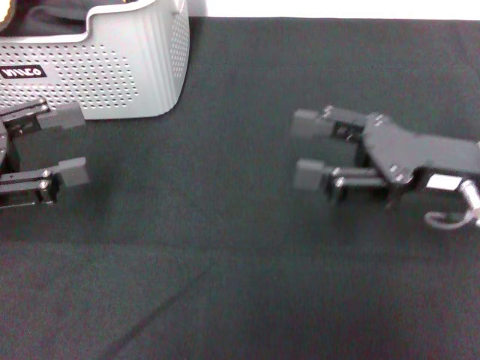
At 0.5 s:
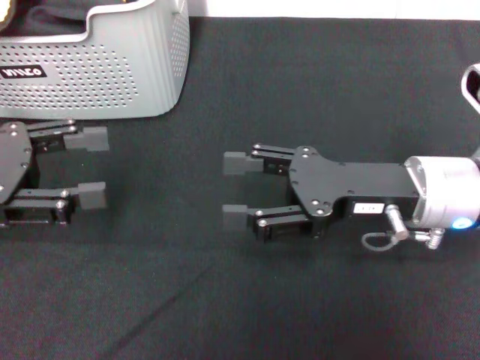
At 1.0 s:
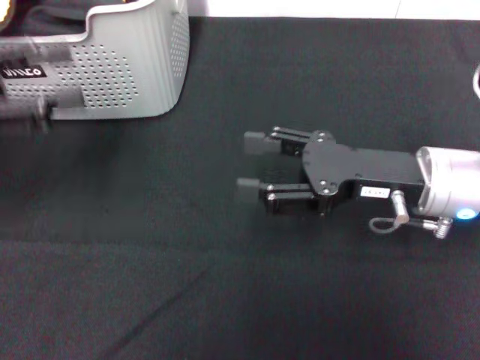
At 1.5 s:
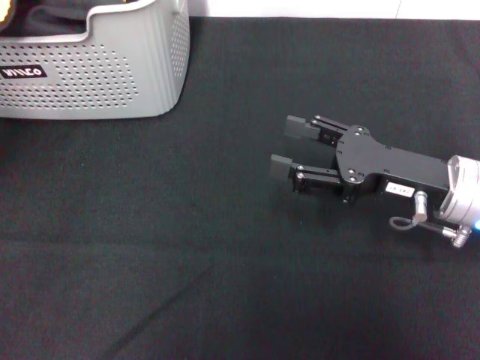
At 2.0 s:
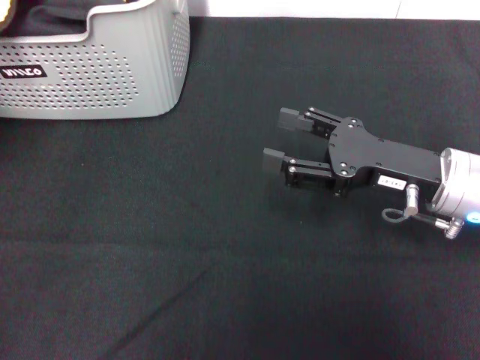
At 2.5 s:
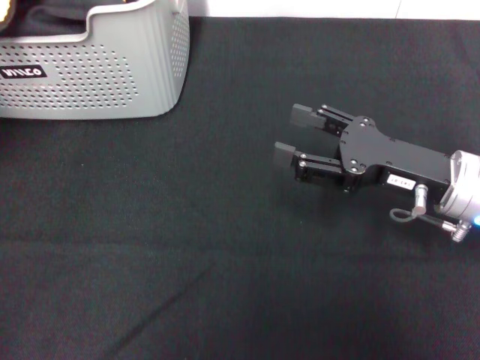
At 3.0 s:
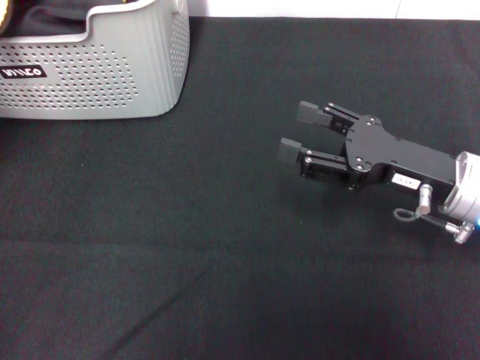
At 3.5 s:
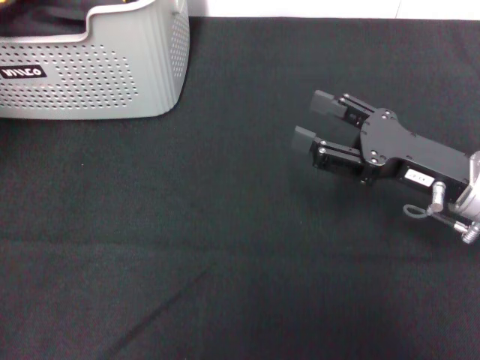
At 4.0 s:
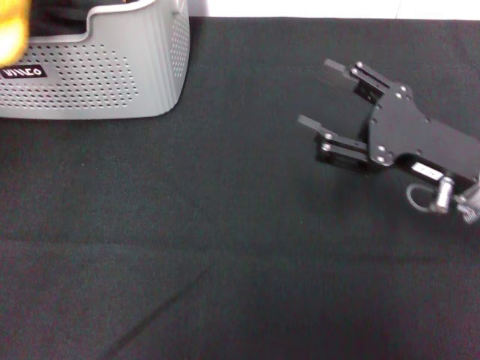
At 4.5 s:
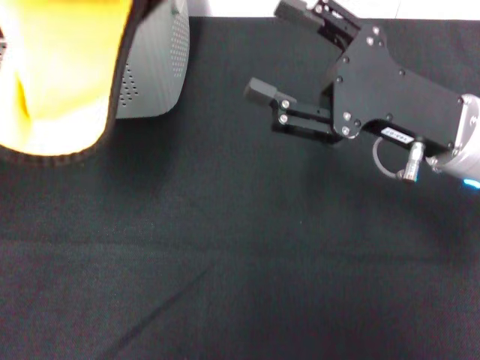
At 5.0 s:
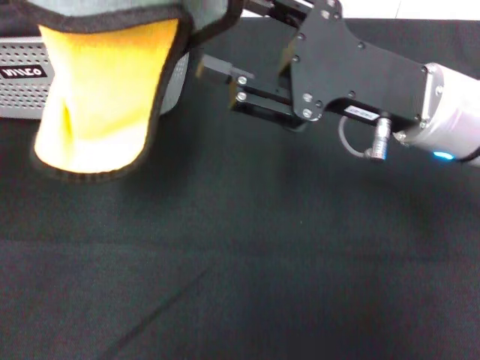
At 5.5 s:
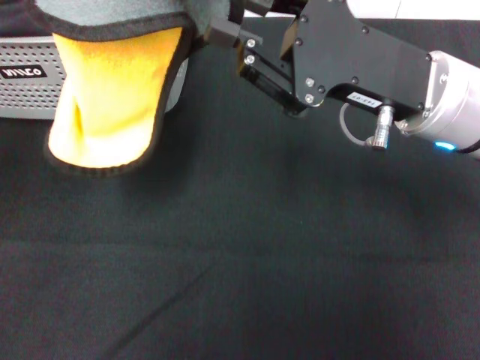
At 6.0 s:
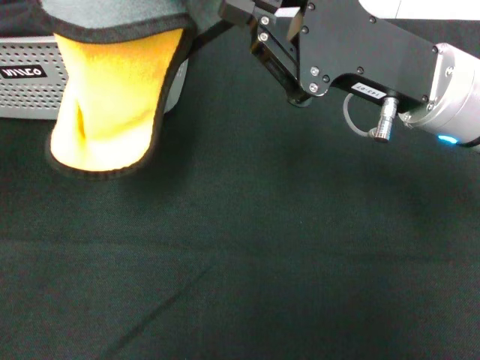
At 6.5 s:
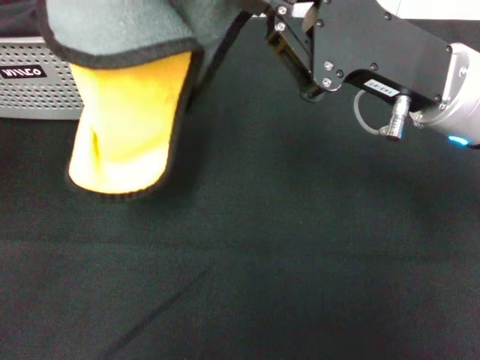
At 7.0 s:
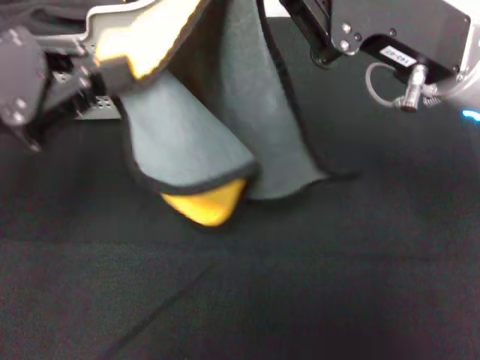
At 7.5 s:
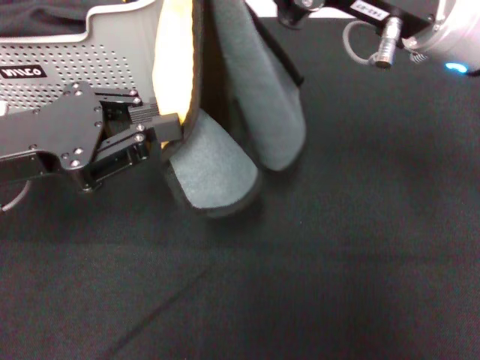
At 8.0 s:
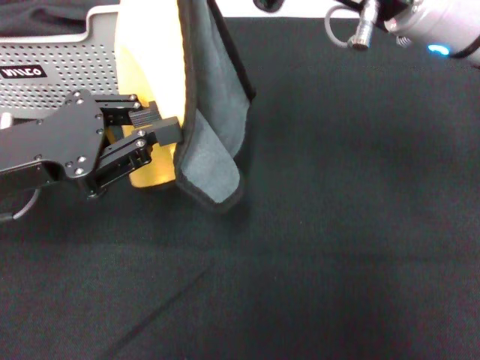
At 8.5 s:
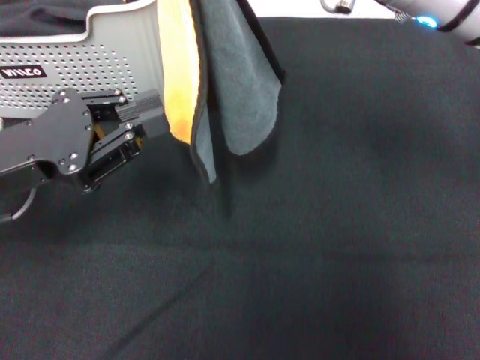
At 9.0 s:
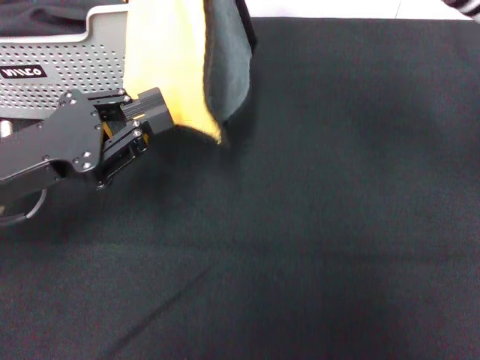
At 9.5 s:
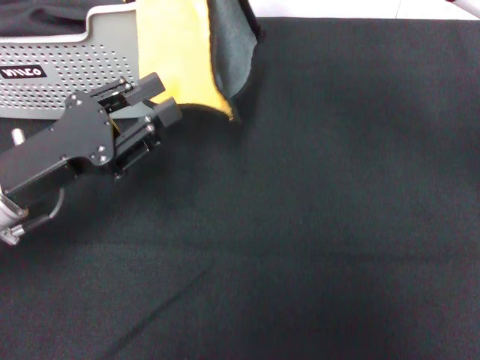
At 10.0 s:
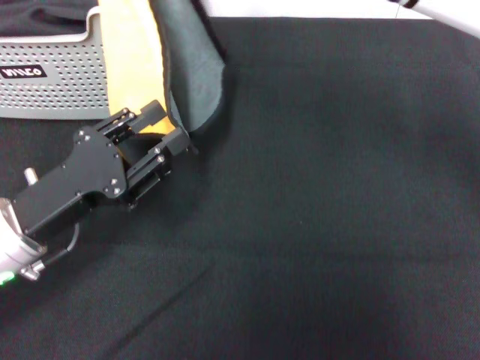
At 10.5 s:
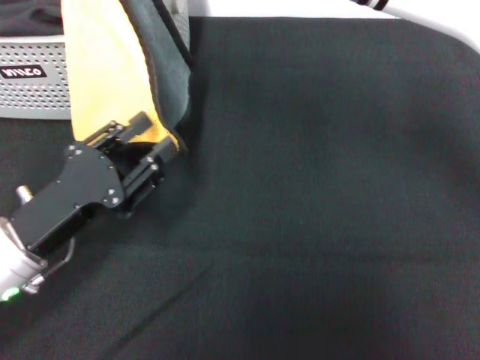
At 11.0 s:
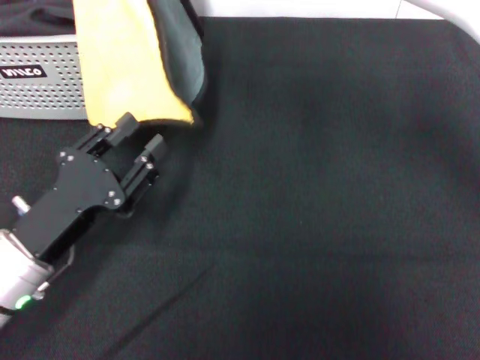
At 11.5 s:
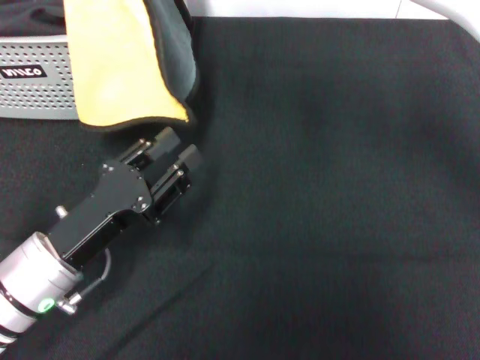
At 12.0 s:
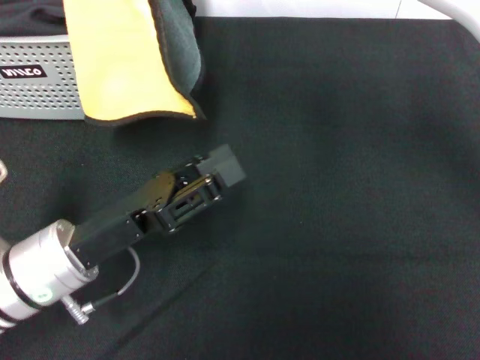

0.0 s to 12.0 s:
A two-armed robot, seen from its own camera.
Task of the whole recording: pick up the towel from the storage box and lay it flat on the black tablecloth.
Step, 0.0 to 3.0 s: Pick up a towel with the left gripper.
Step, 3.5 to 6.5 s: Spread the towel flat with the left gripper.
0.0 to 2.0 s: The left gripper heads upward, covering about 10 cm.
2.0 to 4.0 s: The left gripper is displaced upward by approximately 10 cm, and closes up.
4.0 to 6.0 s: The right gripper heads upward and to the left, covering approximately 10 cm, and closes up.
6.0 to 8.0 s: The left gripper shifts approximately 15 cm downward. Meanwhile the right gripper moves upward, roughly 5 cm.
8.0 to 10.0 s: The right gripper moves to the left, some 5 cm; the left gripper heads downward, covering roughly 10 cm, and opens up.

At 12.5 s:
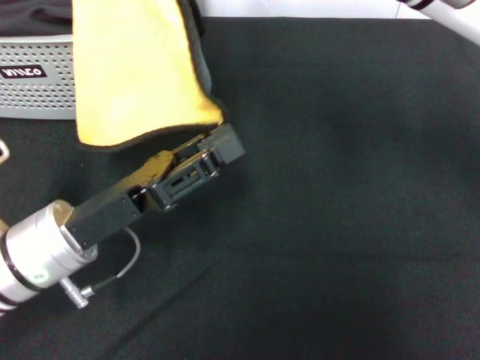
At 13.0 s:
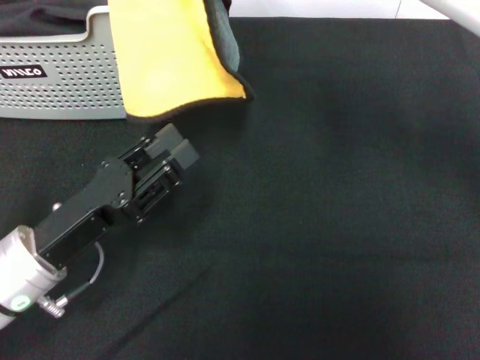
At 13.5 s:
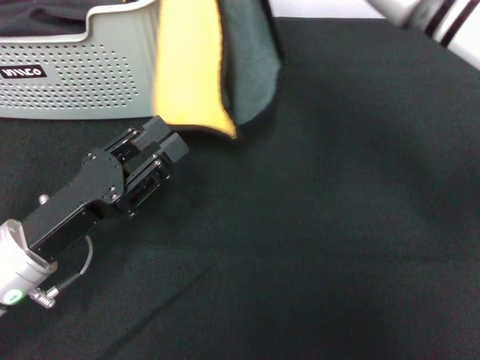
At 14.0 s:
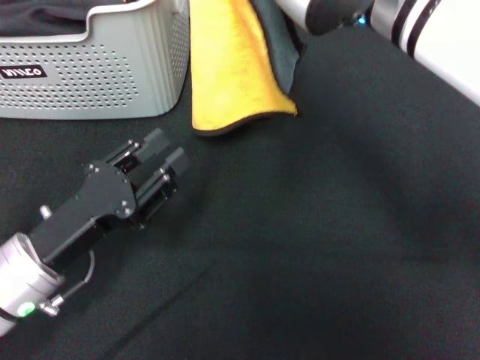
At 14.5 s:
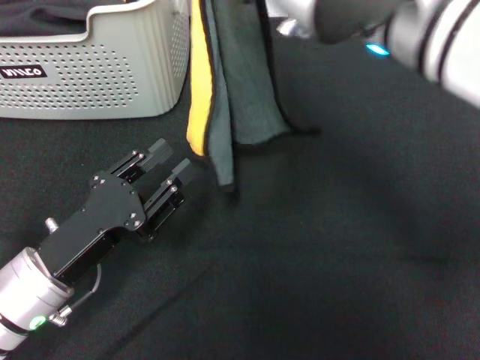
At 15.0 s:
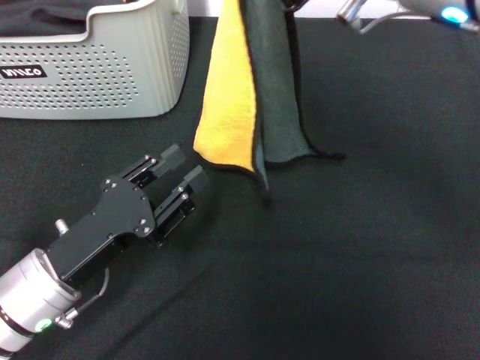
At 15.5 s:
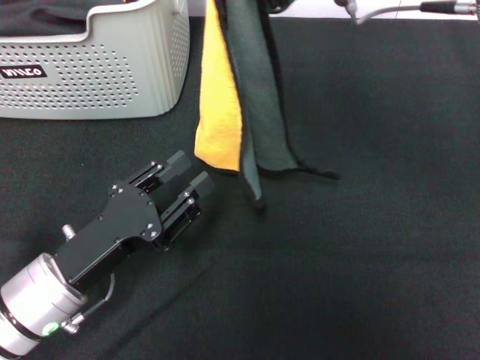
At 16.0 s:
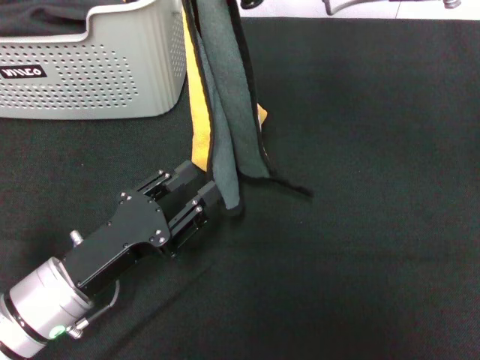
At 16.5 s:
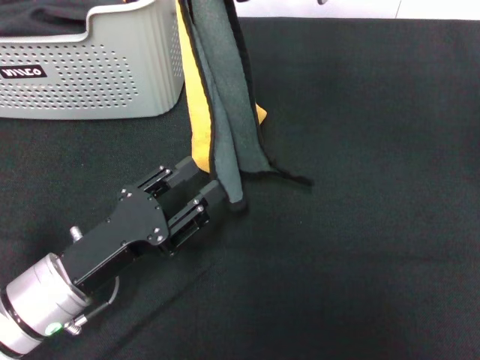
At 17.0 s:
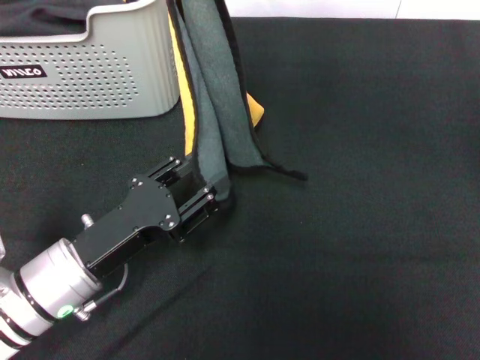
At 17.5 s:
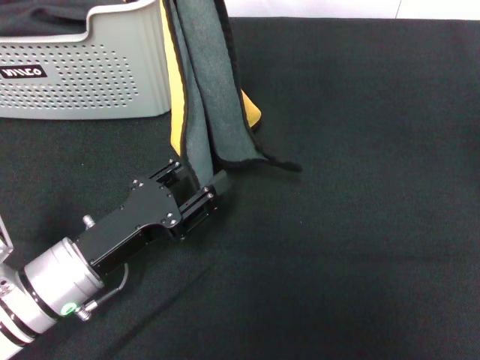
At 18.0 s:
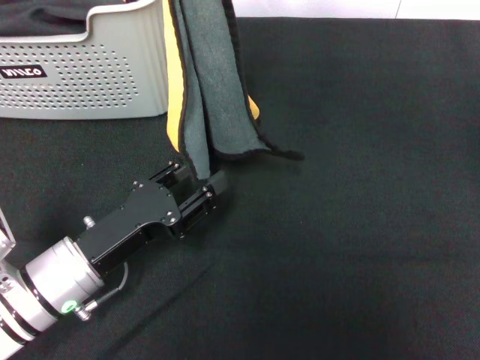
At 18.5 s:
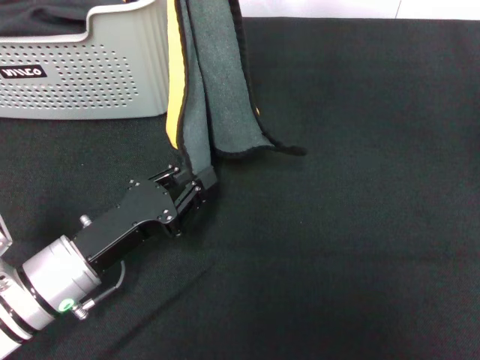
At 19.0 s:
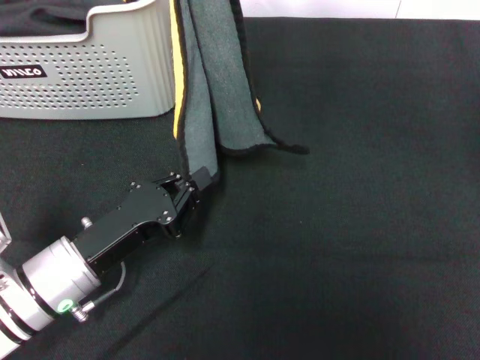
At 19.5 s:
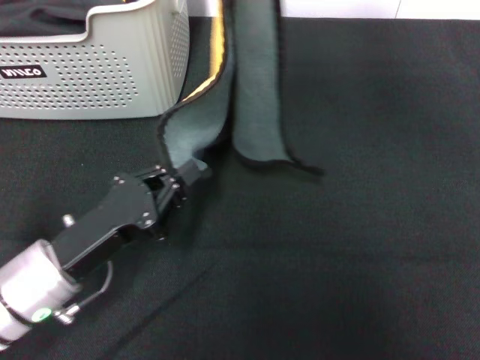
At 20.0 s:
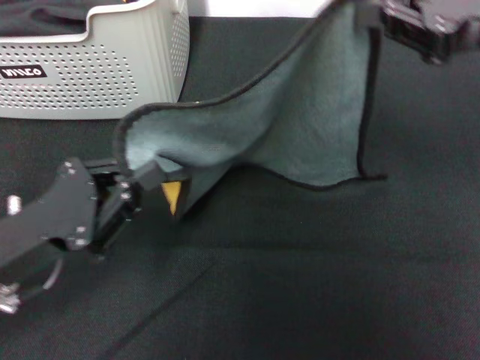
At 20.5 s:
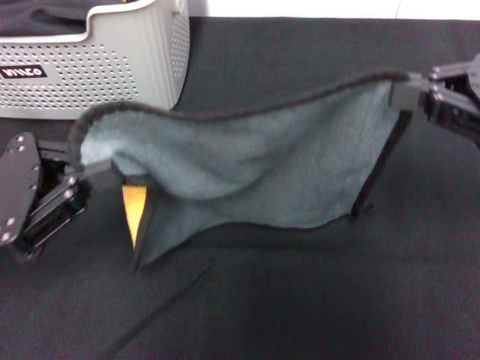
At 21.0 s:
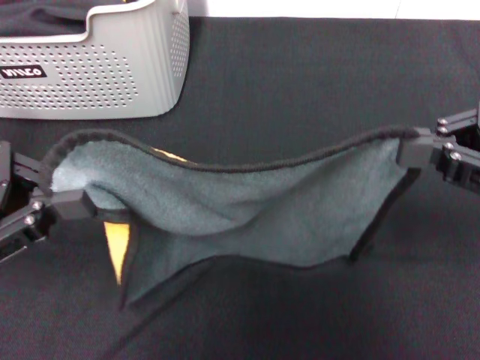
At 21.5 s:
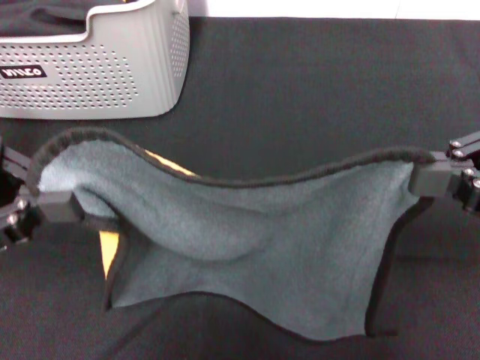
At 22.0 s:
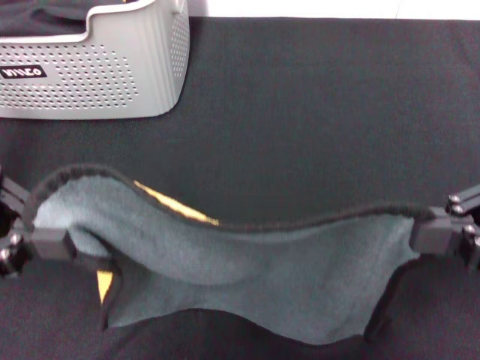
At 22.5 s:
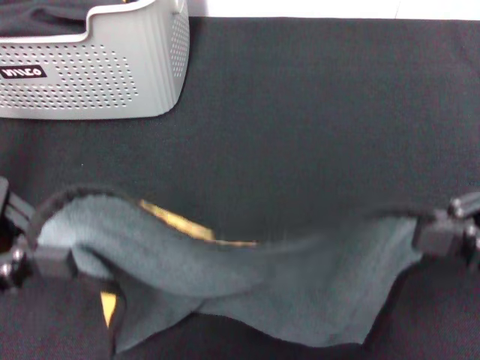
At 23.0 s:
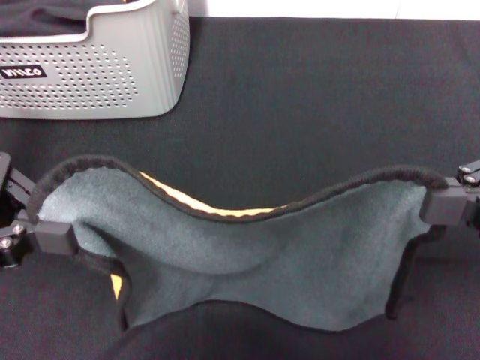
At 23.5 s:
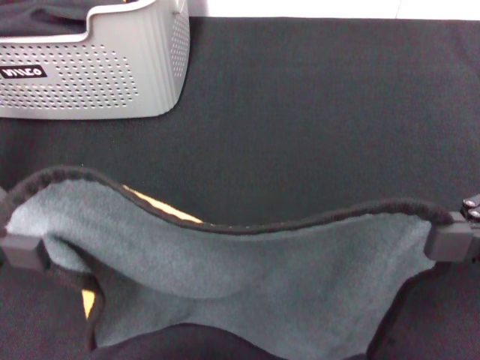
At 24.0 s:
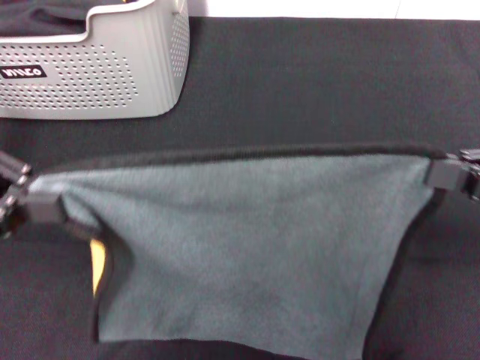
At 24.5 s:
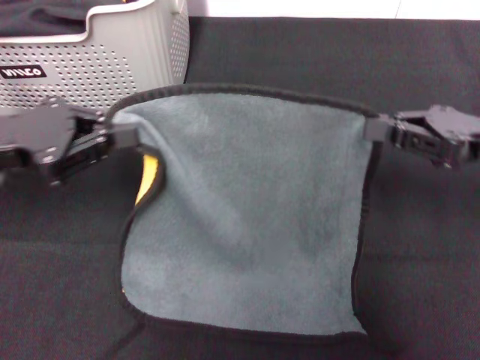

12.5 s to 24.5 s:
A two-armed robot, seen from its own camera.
Task of the whole recording: pick up the towel from the storage box and lay it flat on the black tablecloth.
12.5 to 14.5 s: The left gripper moves about 5 cm, while the right gripper goes some 10 cm backward.
14.5 to 16.5 s: The right gripper travels forward by some 5 cm.
16.5 to 18.5 s: The grippers make only small movements.
18.5 to 20.5 s: The right gripper moves to the right, downward and backward, roughly 25 cm. Meanwhile the left gripper shifts about 15 cm upward and to the left, and closes.
20.5 to 22.5 s: The right gripper travels backward by some 5 cm; the left gripper travels upward by some 5 cm.
22.5 to 24.5 s: The two grippers go roughly 10 cm forward.

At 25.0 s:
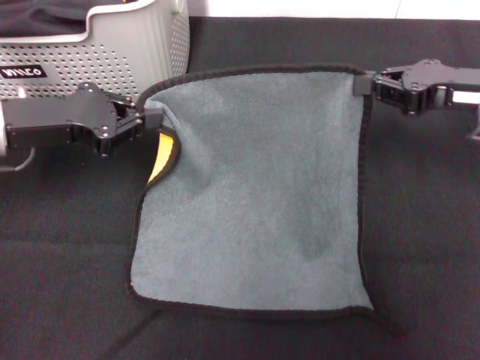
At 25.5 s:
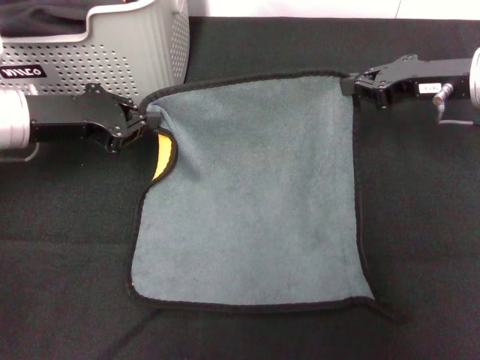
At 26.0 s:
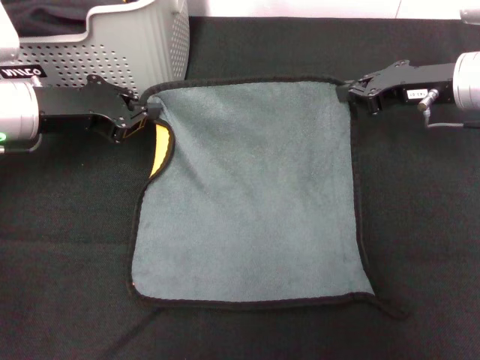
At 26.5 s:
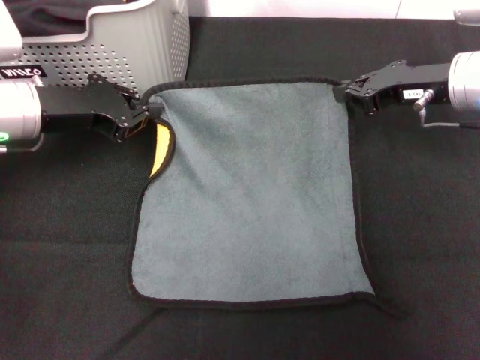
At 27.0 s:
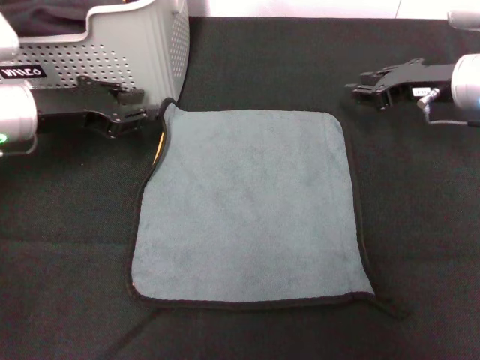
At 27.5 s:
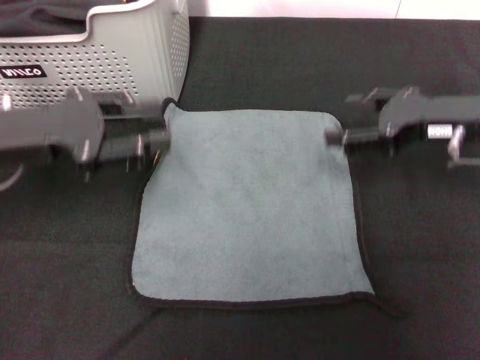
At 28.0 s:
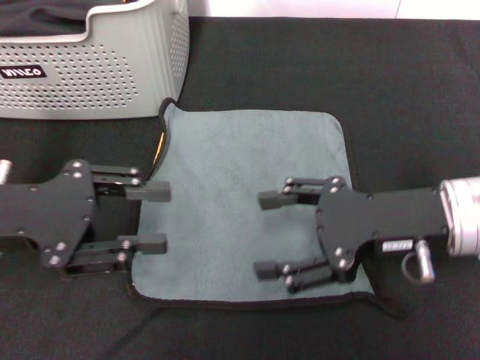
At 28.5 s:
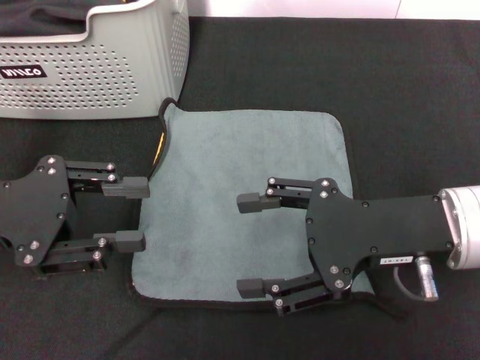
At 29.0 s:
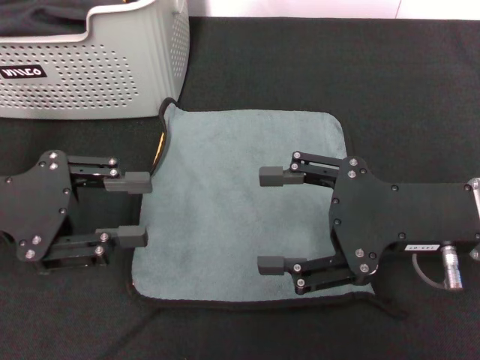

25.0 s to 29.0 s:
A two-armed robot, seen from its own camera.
Task of the whole recording: pick up the towel from the storage box and lay it flat on the black tablecloth.
25.0 to 27.0 s: The right gripper heads forward, covering approximately 5 cm.
27.0 to 29.0 s: Both grippers travel together backward, roughly 15 cm. The left gripper opens its fingers; the right gripper opens.
